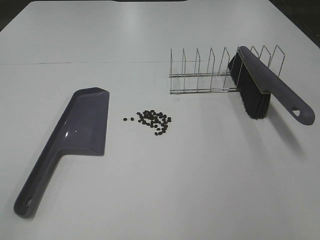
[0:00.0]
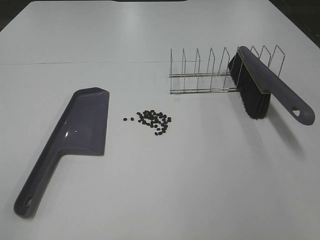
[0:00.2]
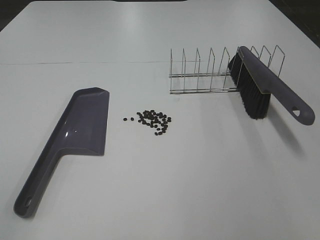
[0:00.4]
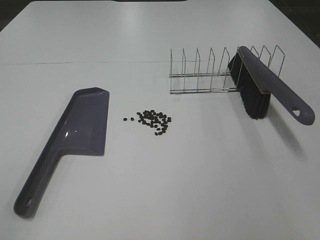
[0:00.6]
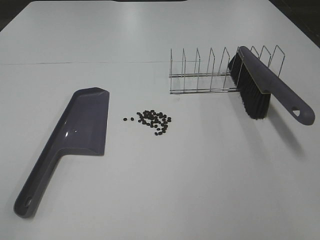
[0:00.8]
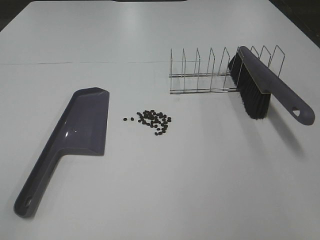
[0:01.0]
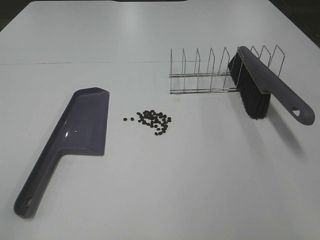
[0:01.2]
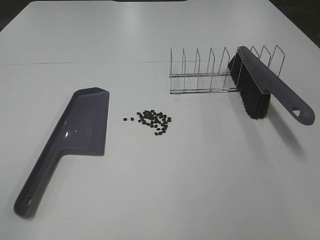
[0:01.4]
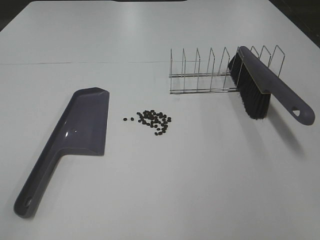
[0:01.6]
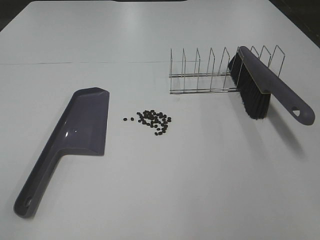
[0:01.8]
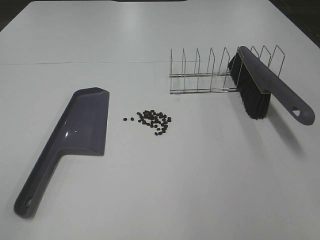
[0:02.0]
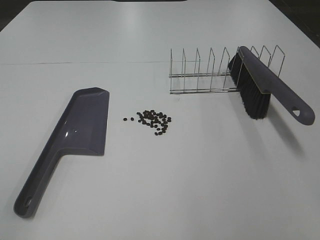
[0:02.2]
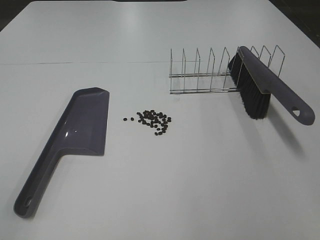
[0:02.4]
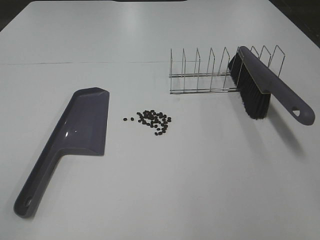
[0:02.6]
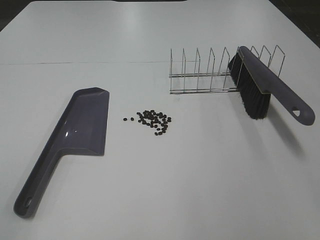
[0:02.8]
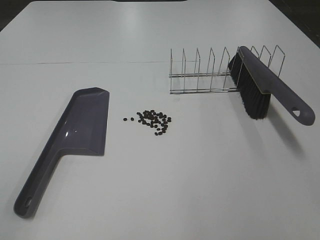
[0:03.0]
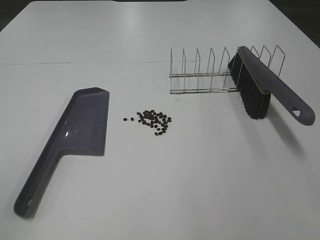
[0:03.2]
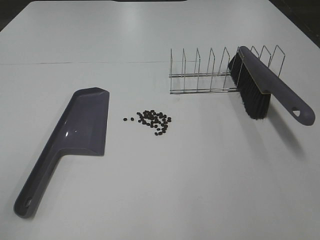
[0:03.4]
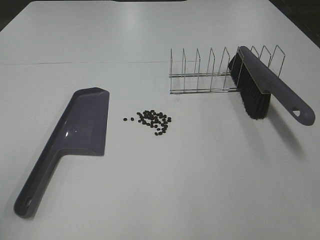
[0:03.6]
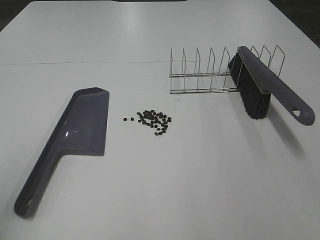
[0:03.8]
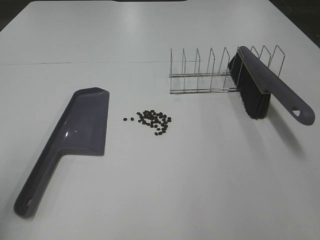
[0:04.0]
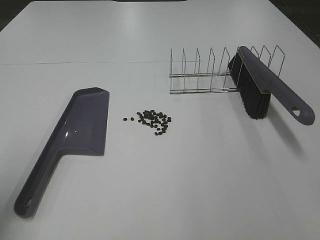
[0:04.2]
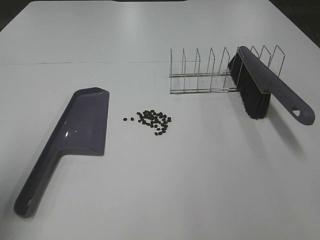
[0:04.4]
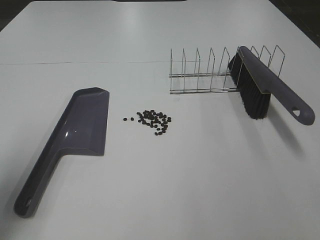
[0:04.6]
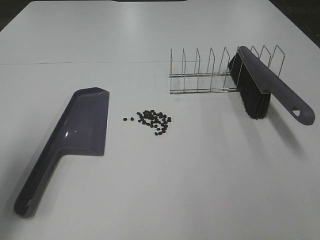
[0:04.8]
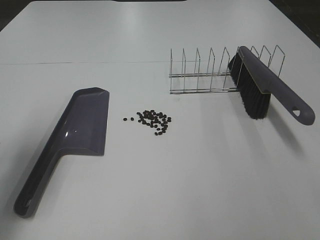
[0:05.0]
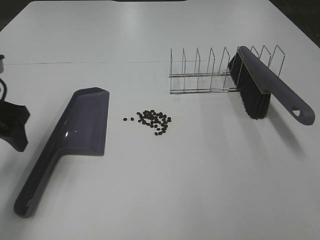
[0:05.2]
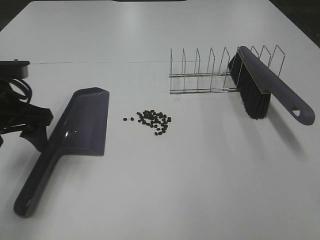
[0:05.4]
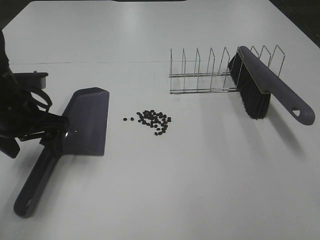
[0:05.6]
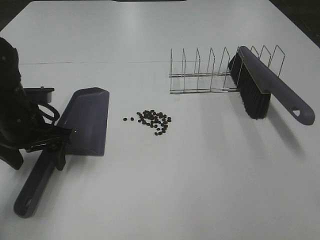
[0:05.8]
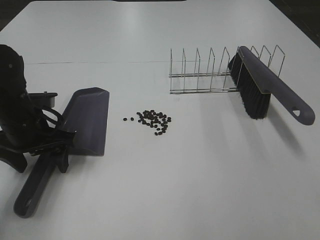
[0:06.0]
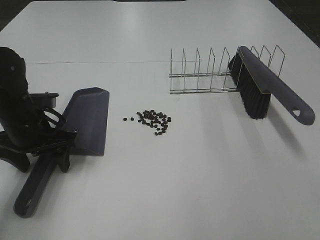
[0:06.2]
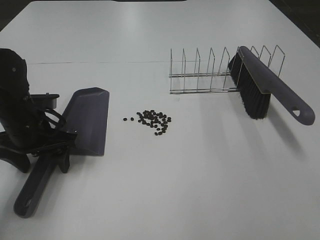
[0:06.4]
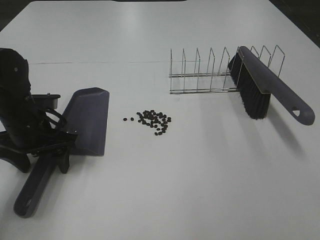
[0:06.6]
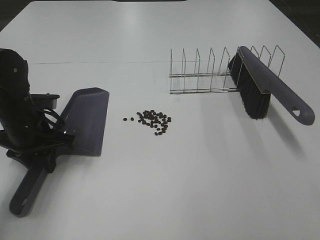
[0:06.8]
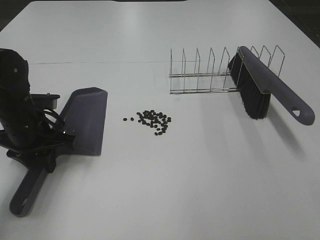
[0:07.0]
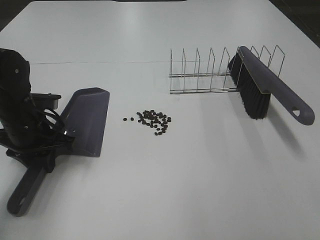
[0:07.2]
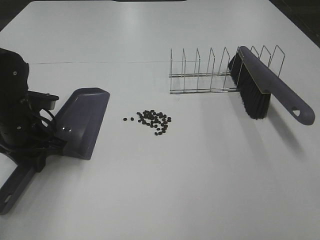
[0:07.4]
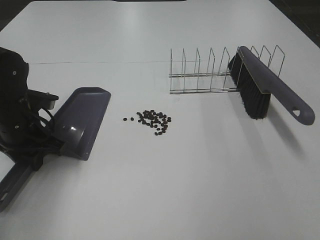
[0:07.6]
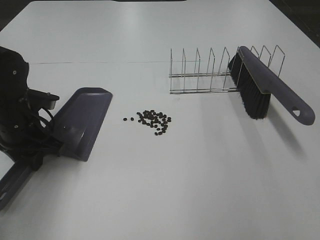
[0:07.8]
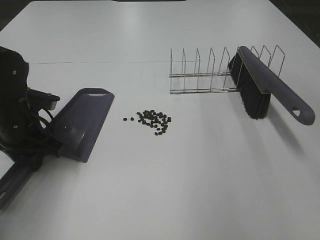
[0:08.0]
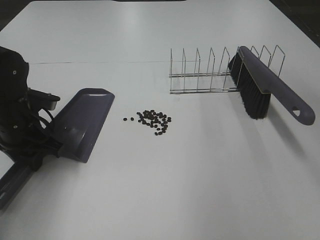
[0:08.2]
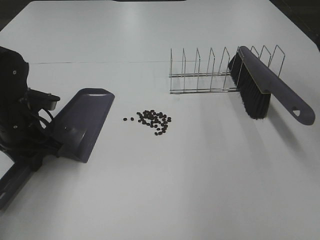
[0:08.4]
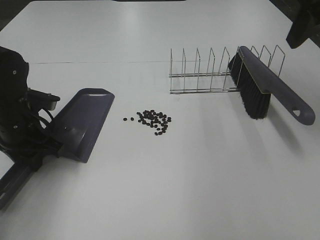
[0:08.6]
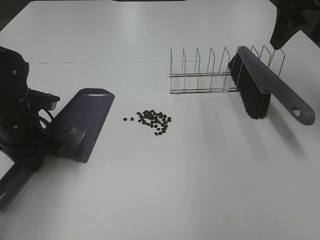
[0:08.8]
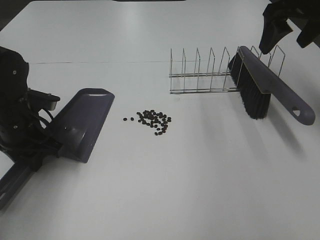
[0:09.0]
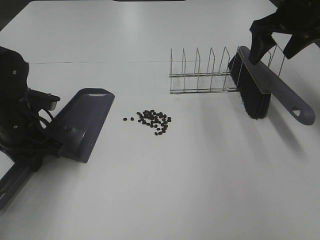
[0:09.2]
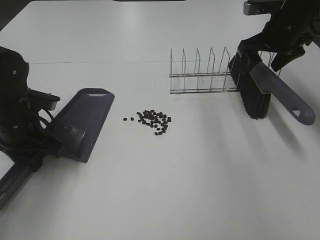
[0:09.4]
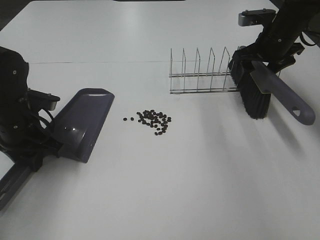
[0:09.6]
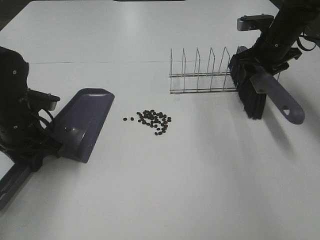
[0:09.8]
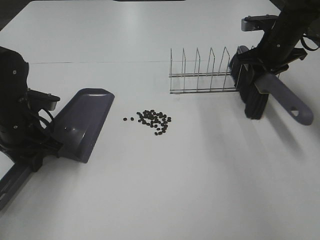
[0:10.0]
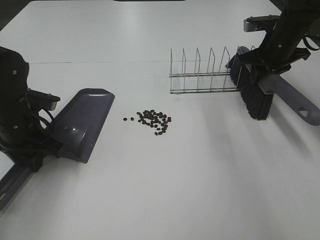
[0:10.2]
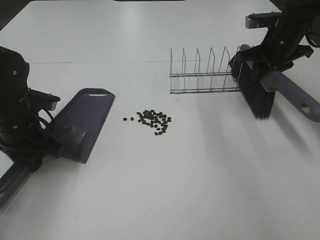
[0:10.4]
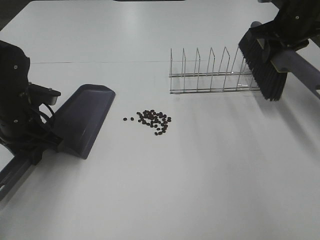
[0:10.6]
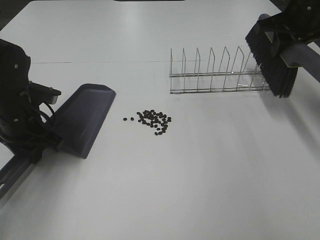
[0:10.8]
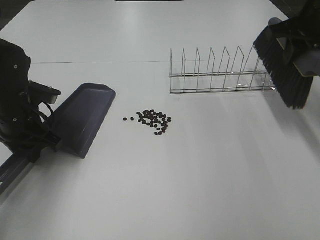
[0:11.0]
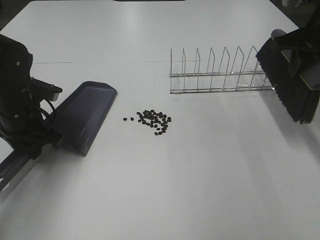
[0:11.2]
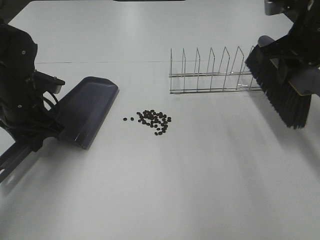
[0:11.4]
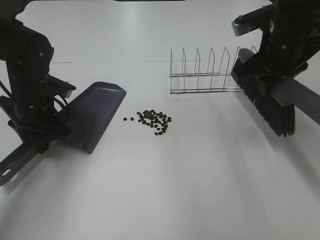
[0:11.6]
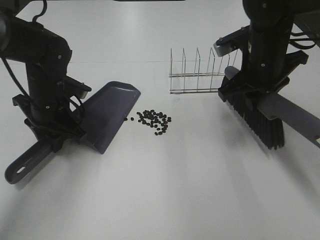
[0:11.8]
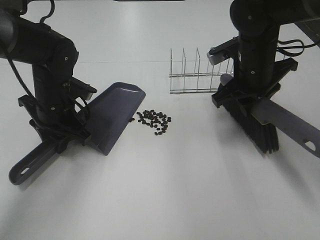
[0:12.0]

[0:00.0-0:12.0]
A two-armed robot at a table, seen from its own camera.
Task of the whole recording: Sweep Coffee Bean.
Step, 0:00.0 to 0:07.0: Left hand: grab the dustpan.
Step, 0:07.6 to 0:10.2: Right hand:grab the broom.
0:00.0 to 0:01.6: The two grippers keep their place.
0:03.0 to 0:04.4: The left gripper goes roughly 15 cm forward.
0:04.4 to 0:06.0: The left gripper is displaced forward, downward and to the right by roughly 25 cm.
0:06.0 to 0:07.6: The left gripper closes its fingers.
0:07.6 to 0:09.0: The right gripper moves forward, some 35 cm.
0:09.0 to 0:10.4: The right gripper heads downward and forward, covering some 10 cm, and closes up.
0:10.4 to 0:12.0: The right gripper travels to the left and backward by some 15 cm; the left gripper goes roughly 5 cm to the right.

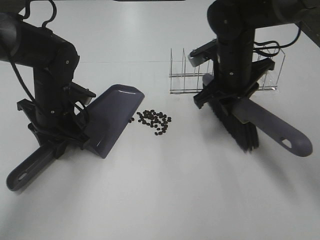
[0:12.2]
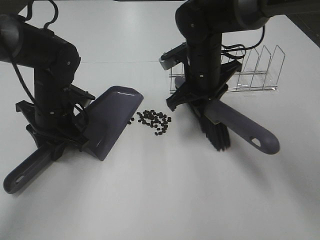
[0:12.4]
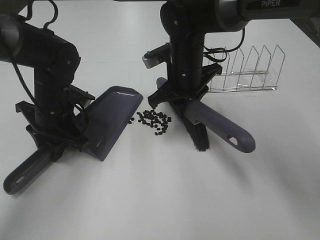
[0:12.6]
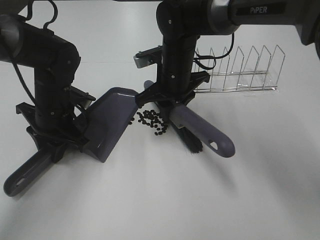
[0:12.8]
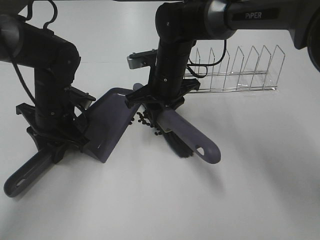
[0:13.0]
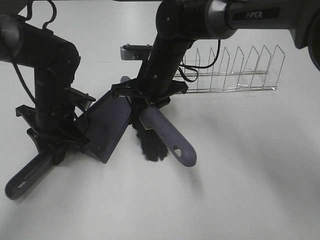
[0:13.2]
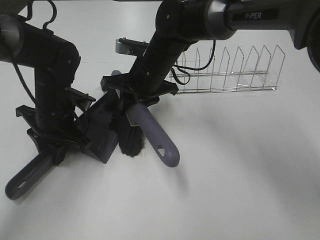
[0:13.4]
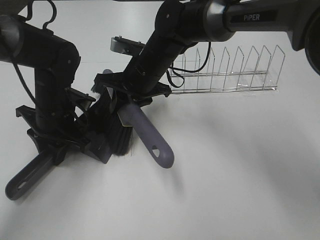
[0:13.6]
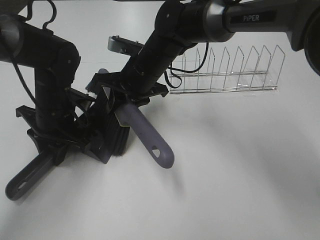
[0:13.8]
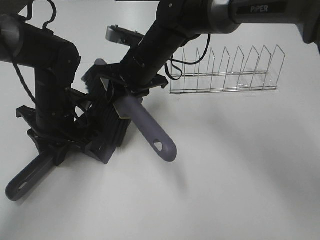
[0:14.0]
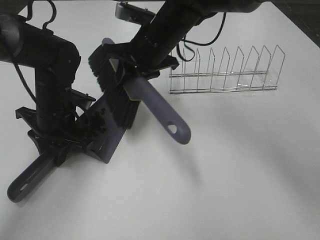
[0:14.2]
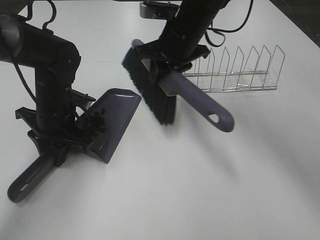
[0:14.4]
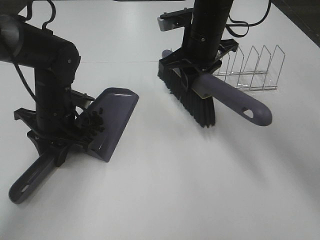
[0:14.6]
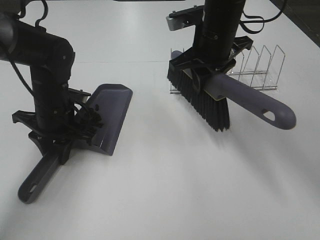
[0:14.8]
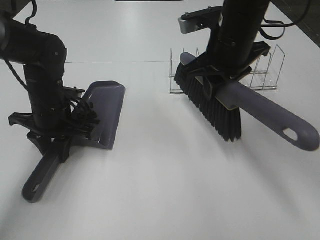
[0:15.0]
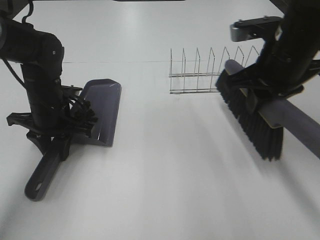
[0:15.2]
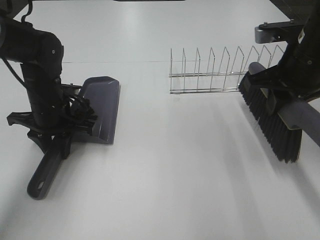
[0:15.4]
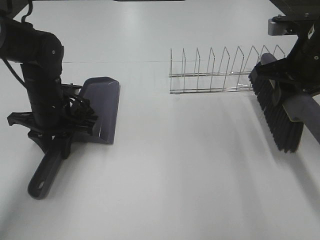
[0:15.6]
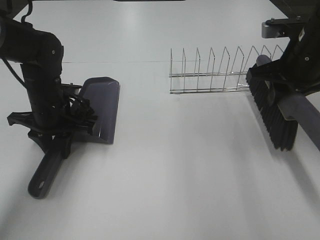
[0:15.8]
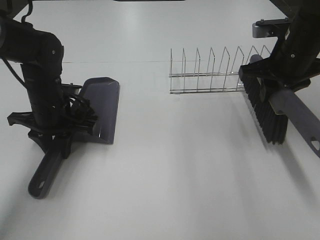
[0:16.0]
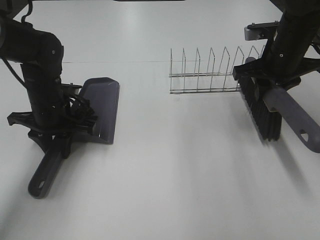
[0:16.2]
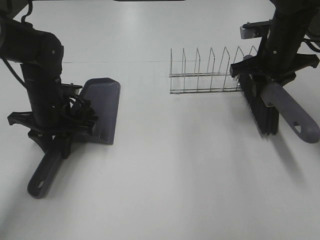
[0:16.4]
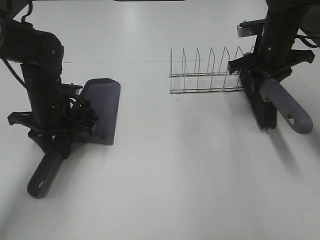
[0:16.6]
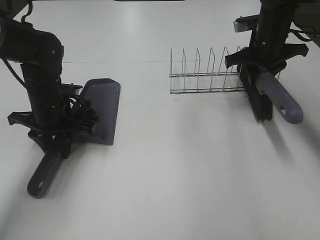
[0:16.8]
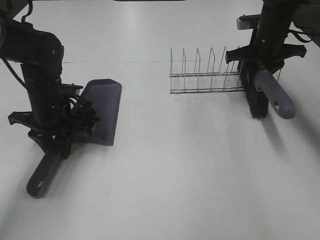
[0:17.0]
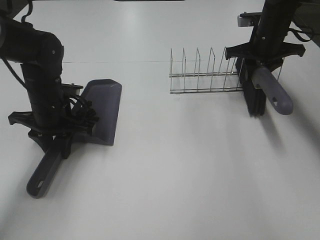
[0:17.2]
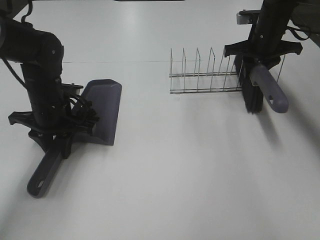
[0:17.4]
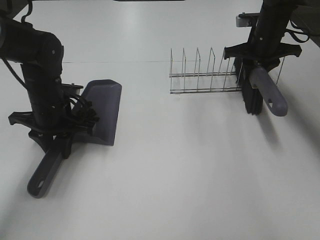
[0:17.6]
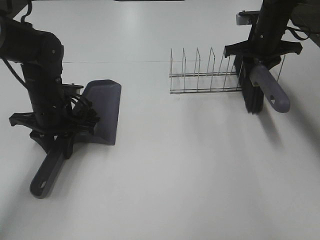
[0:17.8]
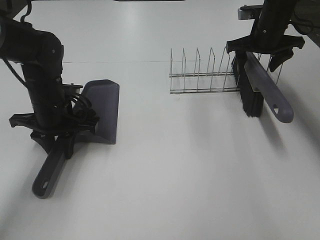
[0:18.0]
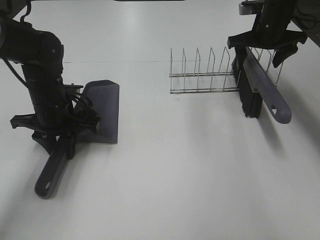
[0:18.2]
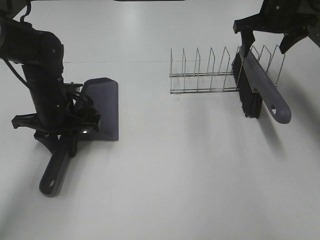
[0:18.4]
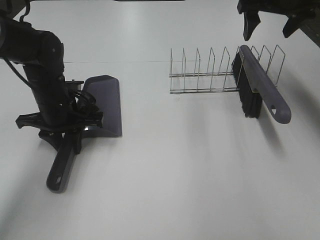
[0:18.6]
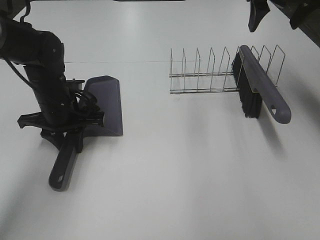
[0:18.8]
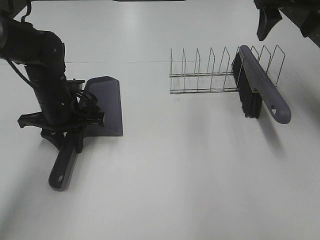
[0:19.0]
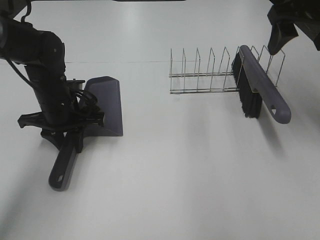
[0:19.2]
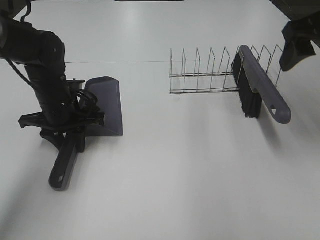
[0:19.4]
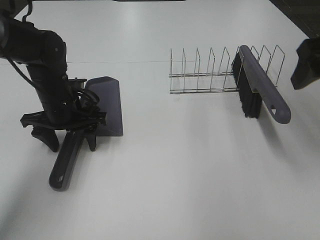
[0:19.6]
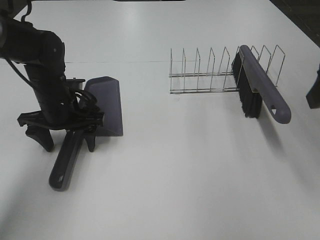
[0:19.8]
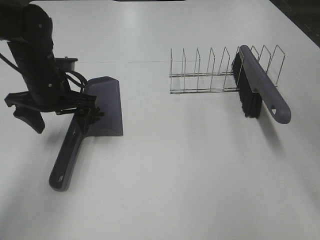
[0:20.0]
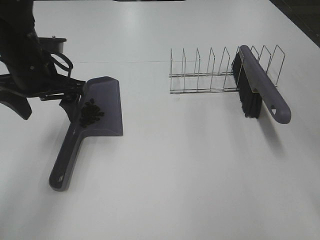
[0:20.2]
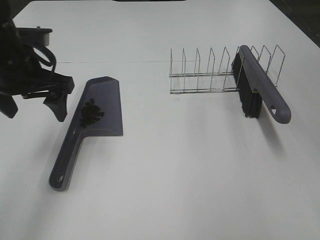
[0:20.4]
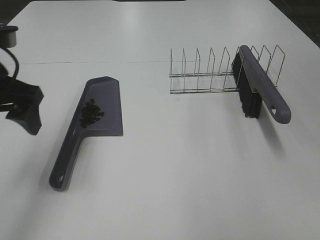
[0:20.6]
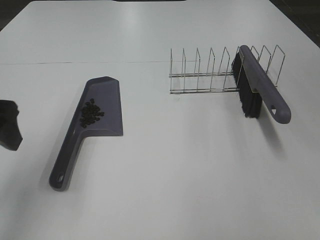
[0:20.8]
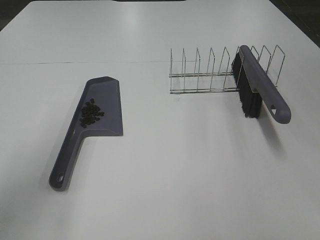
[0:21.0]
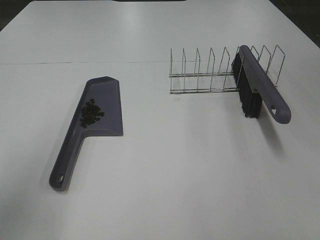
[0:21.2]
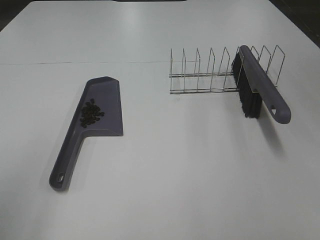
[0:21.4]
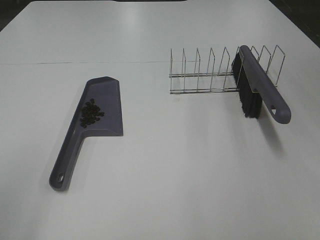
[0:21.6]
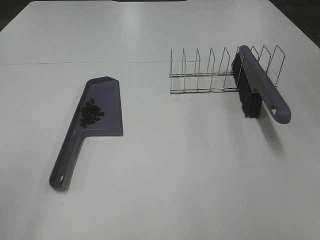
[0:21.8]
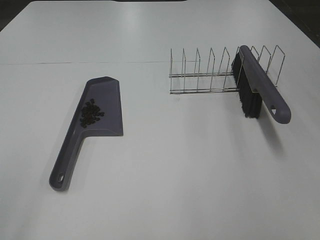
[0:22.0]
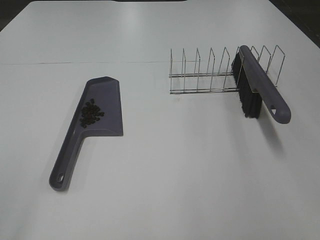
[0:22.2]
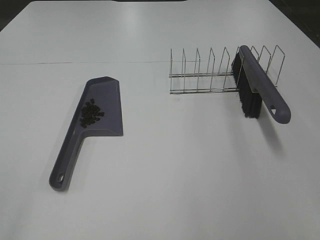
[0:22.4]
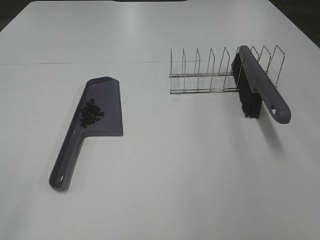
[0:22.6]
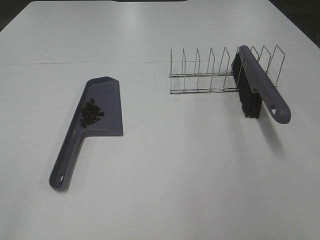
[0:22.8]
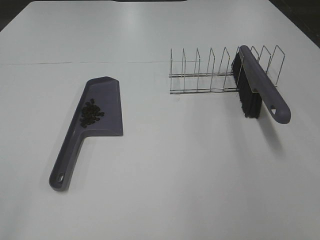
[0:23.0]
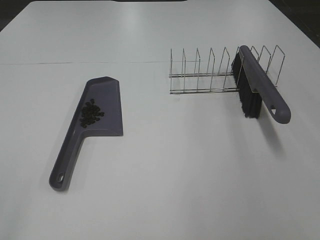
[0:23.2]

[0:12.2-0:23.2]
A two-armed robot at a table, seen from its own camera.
Task of the whole recording: Sweep Coffee Bean.
Step, 0:12.2 to 0:14.2: Right hand:sweep the coffee beans into the dustpan.
Step, 0:14.4 to 0:18.0: Right hand:place the broom on the rack.
0:12.2 to 0:13.8: The right gripper shifts roughly 15 cm to the left.
0:13.8 to 0:15.4: The right gripper travels to the right and backward by about 25 cm.
0:15.4 to 0:17.0: The right gripper moves forward, approximately 15 cm.
0:17.0 to 0:18.4: The right gripper shifts some 5 cm upward, and opens.
0:18.4 to 0:20.0: The left gripper travels upward by about 5 cm, and opens its fingers; the right gripper moves backward, roughly 35 cm.
0:20.0 to 0:21.6: The left gripper moves backward, upward and to the left, approximately 35 cm.
